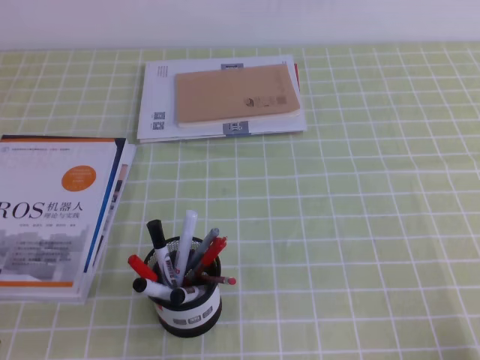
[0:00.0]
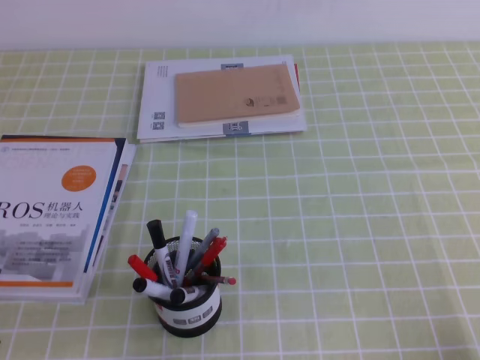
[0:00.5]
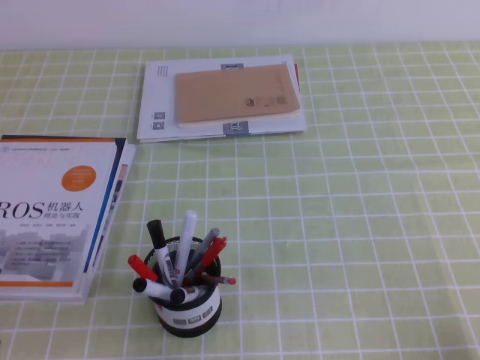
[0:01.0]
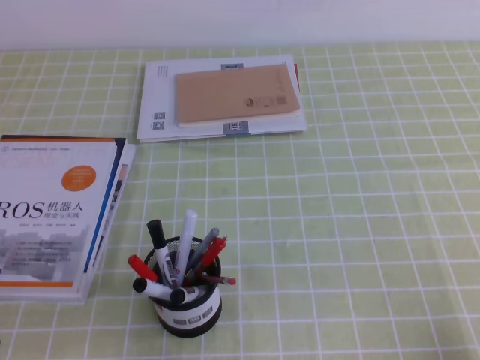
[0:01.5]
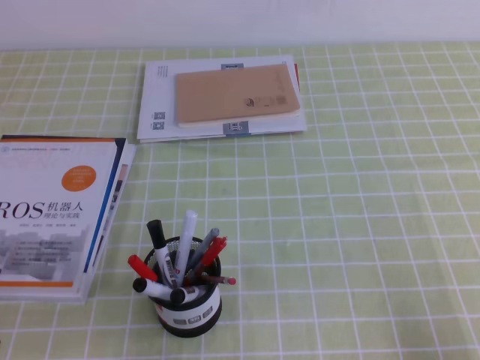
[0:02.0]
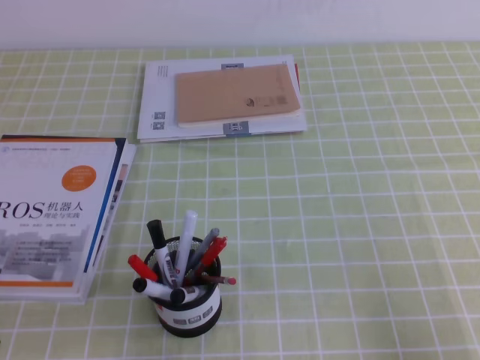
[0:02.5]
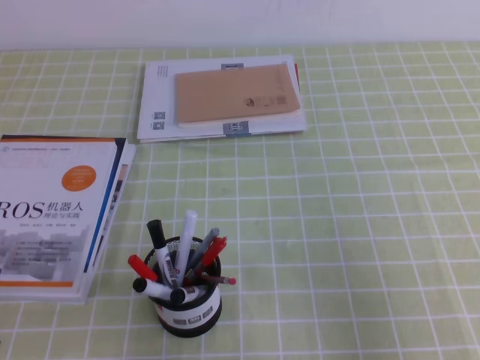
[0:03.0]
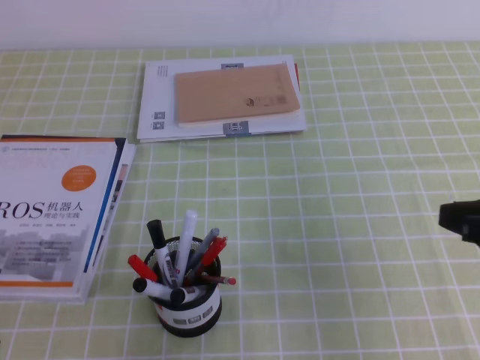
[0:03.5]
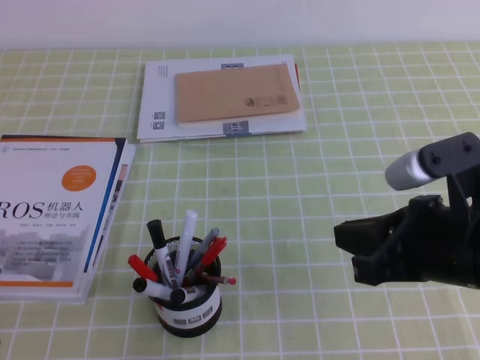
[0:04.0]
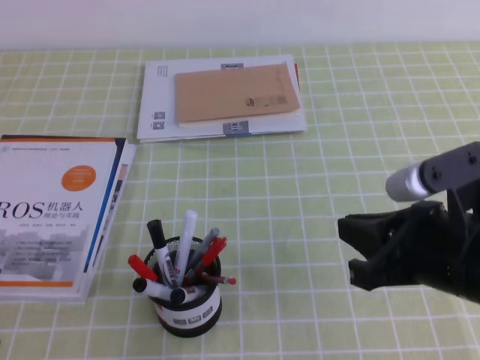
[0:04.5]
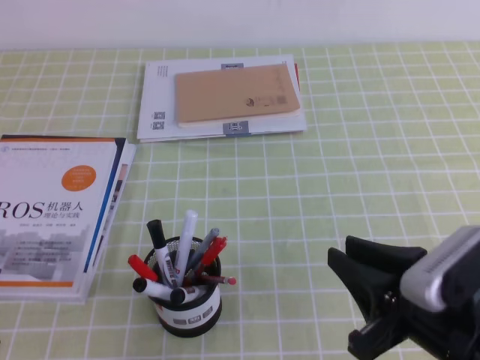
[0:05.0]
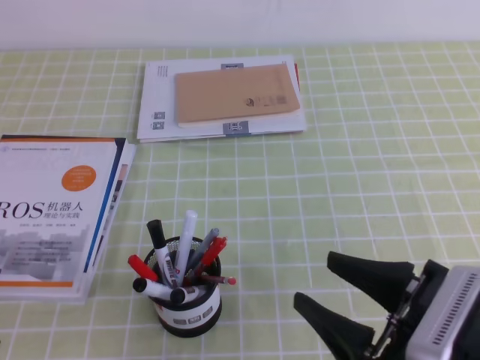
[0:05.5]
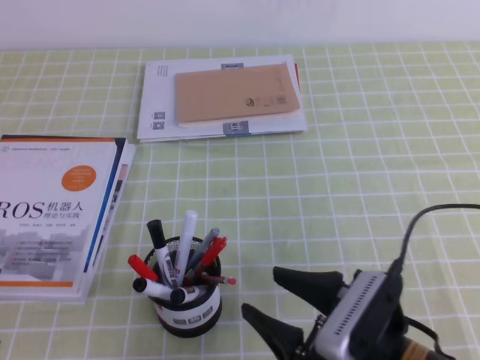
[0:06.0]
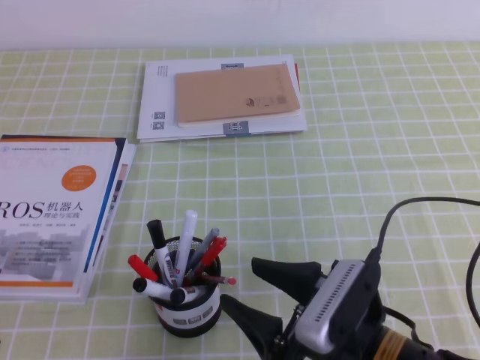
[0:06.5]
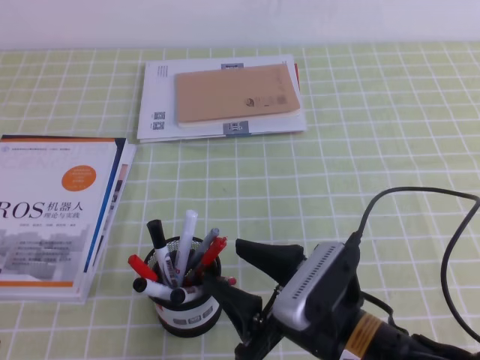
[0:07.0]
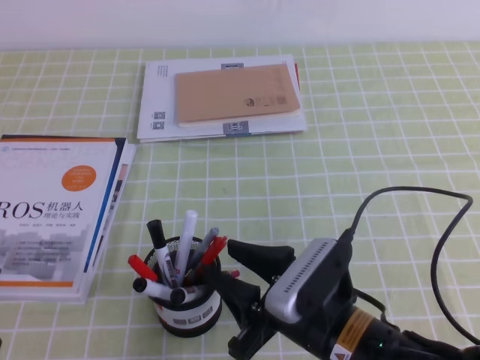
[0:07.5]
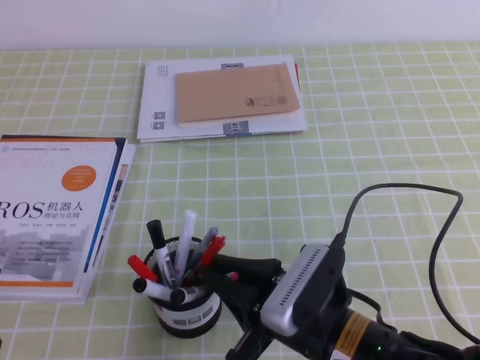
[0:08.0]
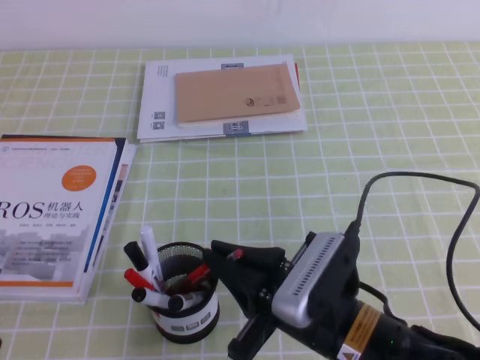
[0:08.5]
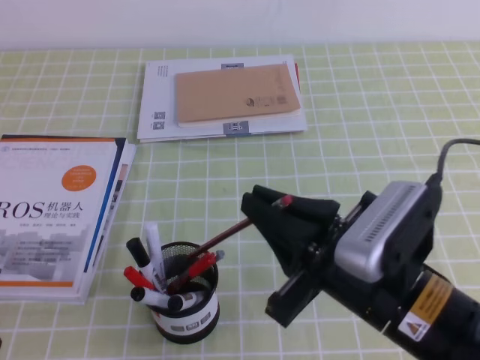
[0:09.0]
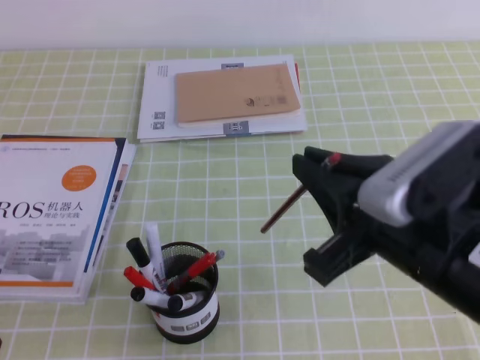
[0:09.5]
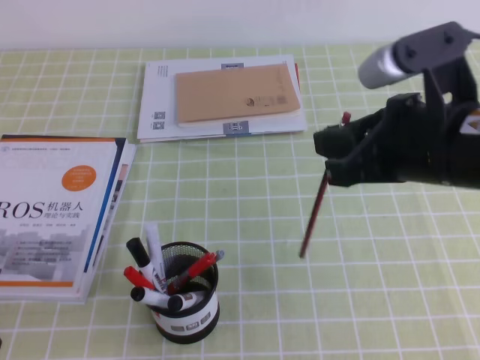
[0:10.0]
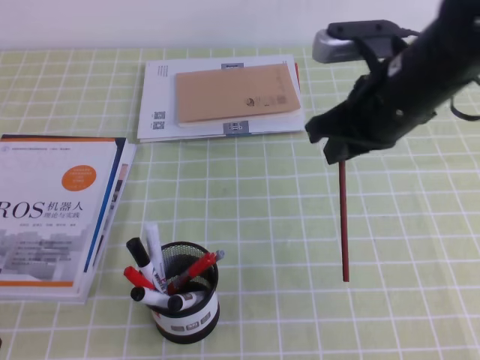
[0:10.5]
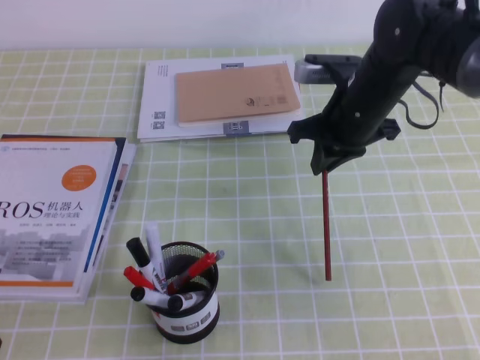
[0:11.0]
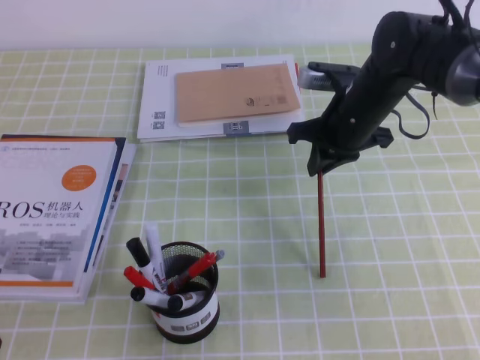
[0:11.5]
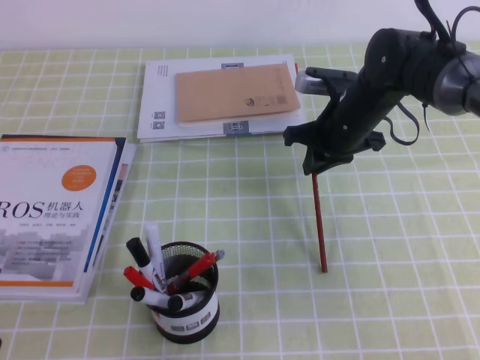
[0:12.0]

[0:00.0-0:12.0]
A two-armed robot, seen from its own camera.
0:02.0 to 0:04.0: The right gripper heads forward, to the left and upward, covering roughly 20 cm.
0:04.0 to 0:06.0: The right gripper travels downward, to the left and backward by some 15 cm, and opens its fingers.
0:06.0 to 0:08.0: The right gripper travels to the left by roughly 5 cm, and closes.
0:08.0 to 0:10.0: The right gripper shifts approximately 20 cm upward and to the right.
0:10.0 to 0:12.0: The right gripper heads forward and downward, covering some 25 cm.

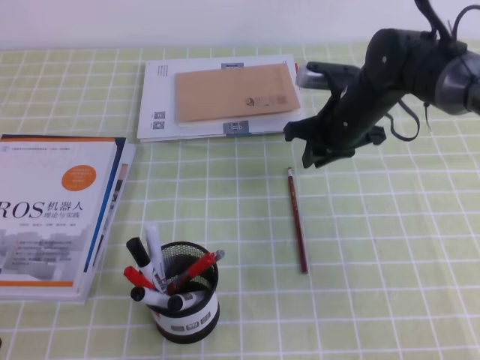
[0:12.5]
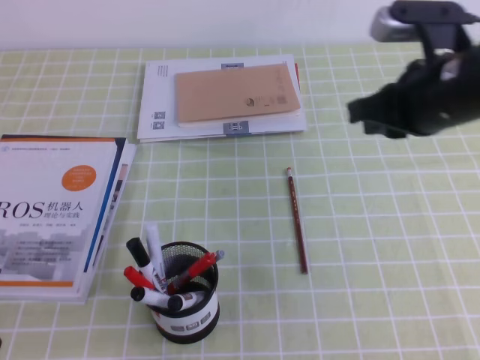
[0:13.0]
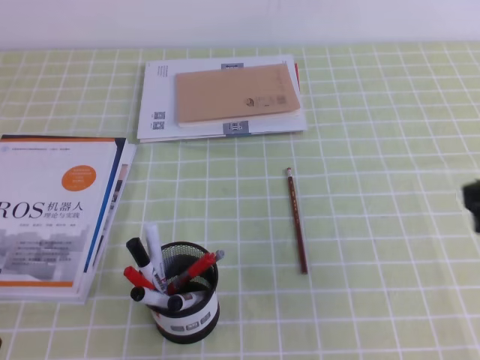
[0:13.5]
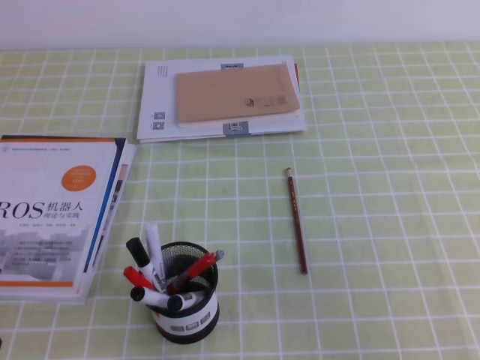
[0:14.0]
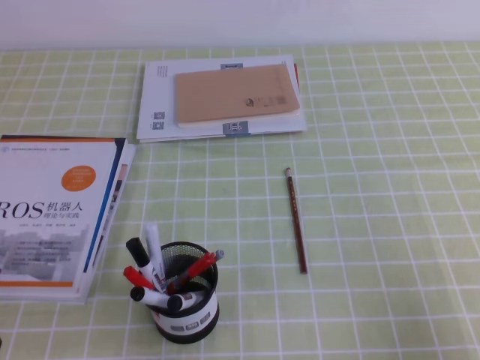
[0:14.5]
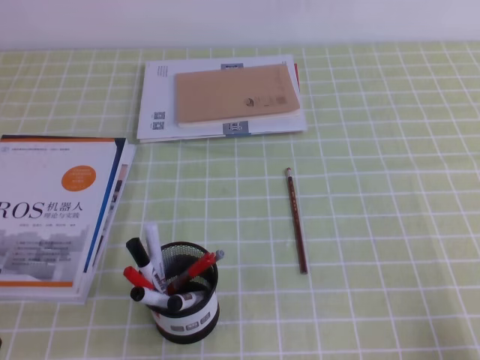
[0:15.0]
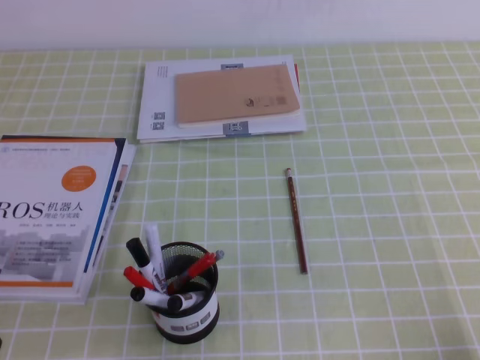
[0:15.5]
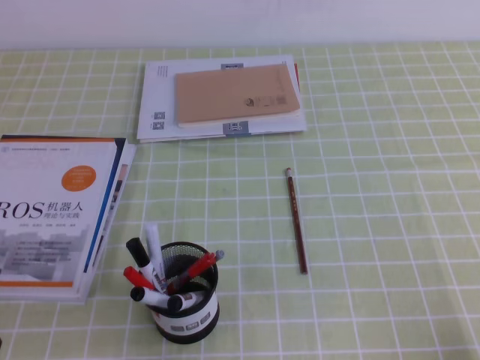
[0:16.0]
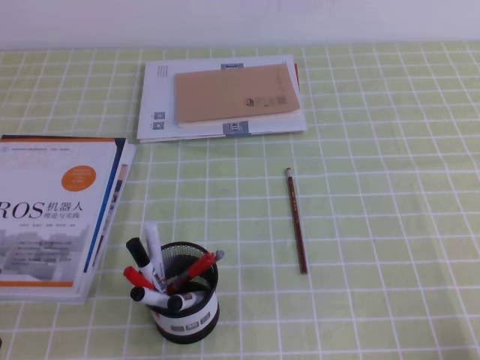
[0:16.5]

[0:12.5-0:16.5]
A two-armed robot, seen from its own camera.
Step, 0:12.5 to 0:16.5: Pick up the pen from the pen holder.
0:12.5 to 0:14.5: The right gripper moves backward and to the right, approximately 40 cm.
